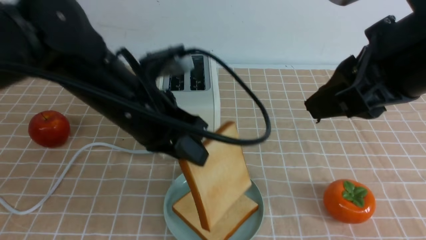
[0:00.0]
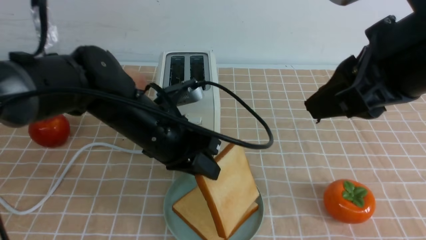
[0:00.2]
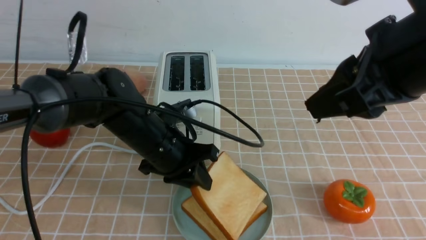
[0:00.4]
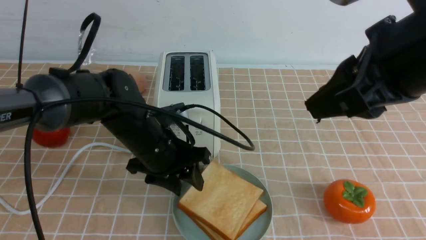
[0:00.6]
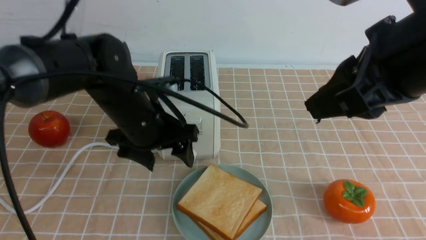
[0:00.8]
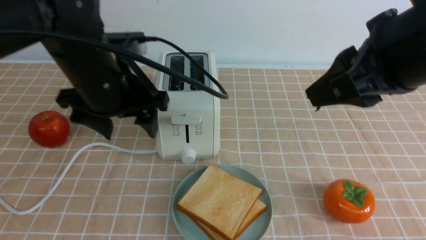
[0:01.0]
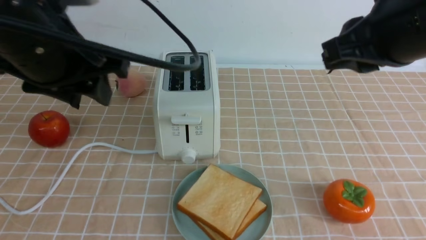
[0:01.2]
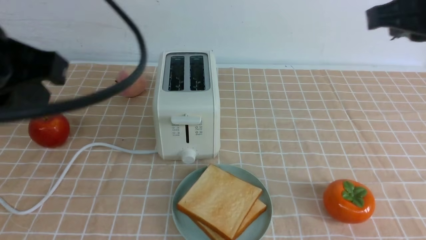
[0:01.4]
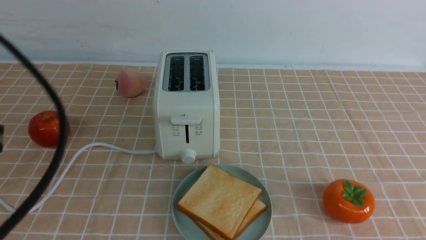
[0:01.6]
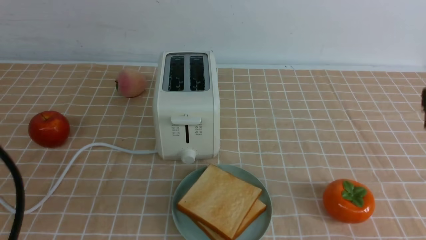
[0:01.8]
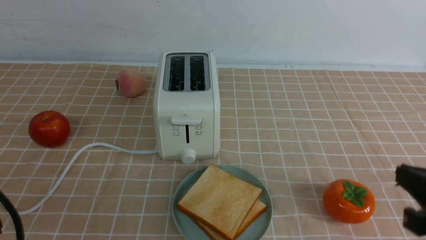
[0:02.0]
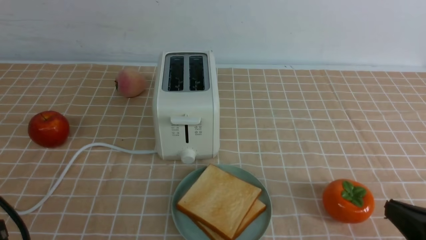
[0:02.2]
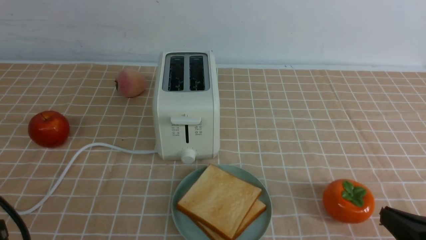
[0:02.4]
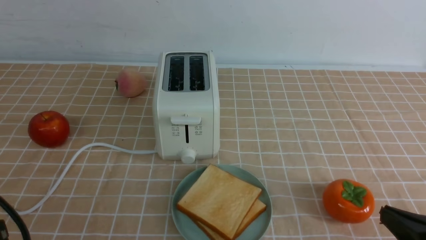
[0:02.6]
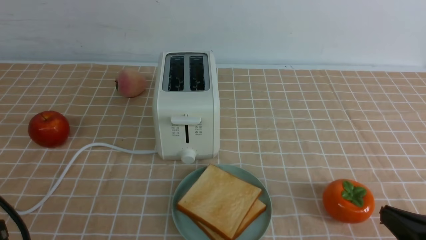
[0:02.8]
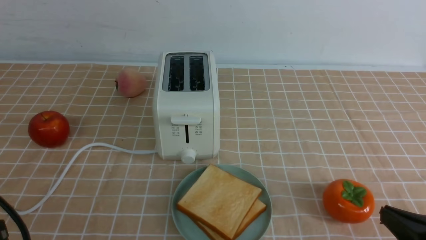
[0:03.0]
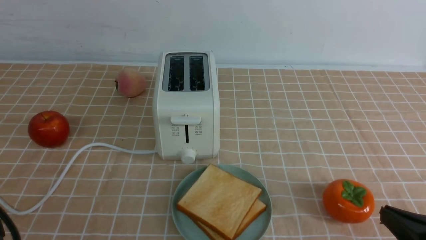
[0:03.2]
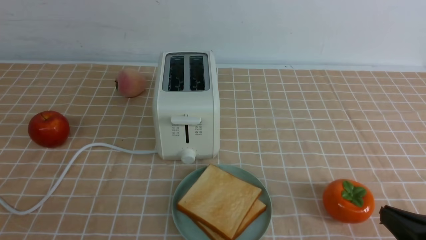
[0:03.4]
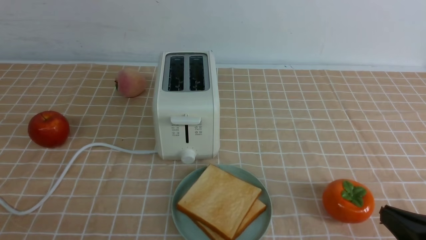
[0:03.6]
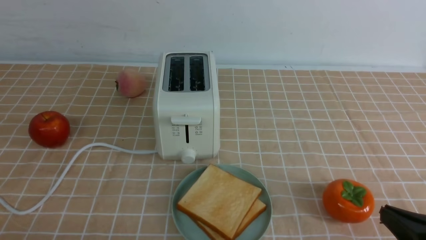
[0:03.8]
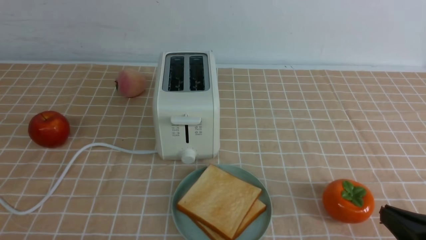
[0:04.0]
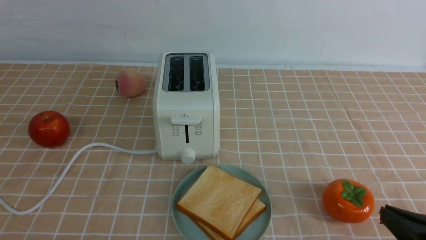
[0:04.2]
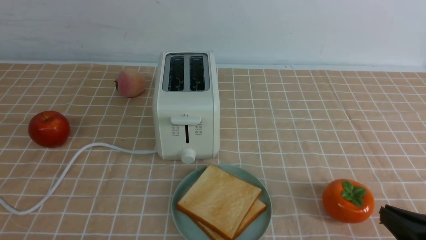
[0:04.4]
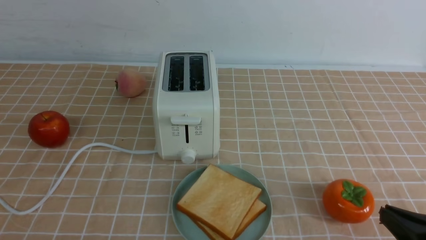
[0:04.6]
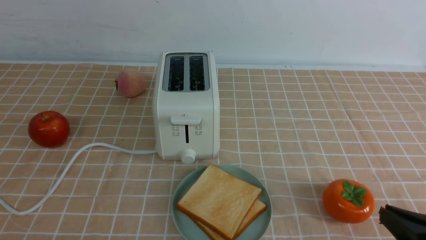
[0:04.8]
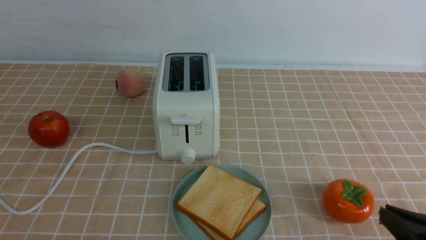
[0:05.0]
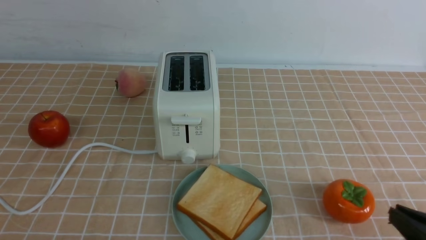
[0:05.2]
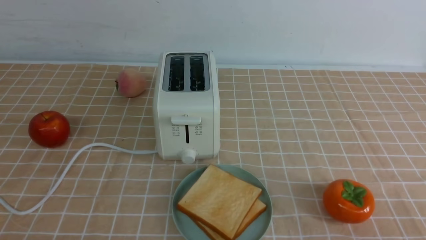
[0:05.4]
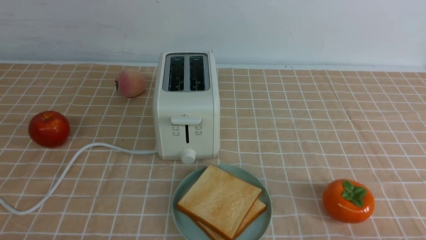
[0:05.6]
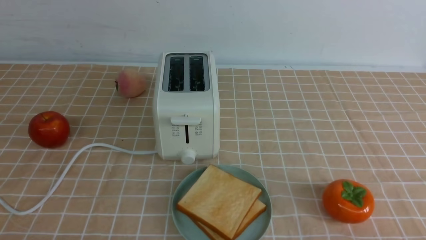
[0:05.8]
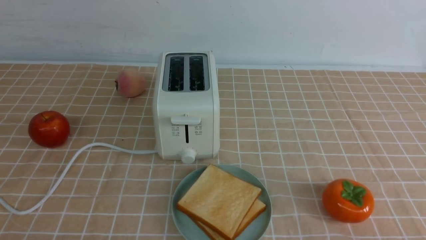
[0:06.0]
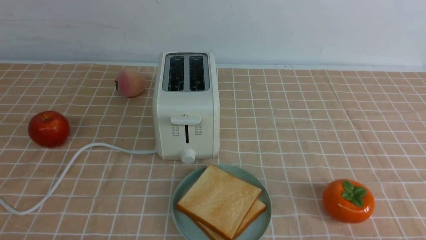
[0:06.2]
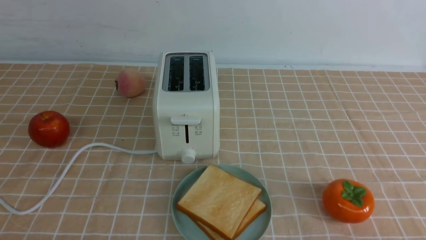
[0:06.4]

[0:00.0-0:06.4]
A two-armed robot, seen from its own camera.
Task of the whole recording: take toasted bread from bread machine on light coffee tablecloth place on plate.
Step, 0:00.0 to 0:00.8: use the left arm to put a slice of bread into the empty plate.
0:00.0 to 0:01.6: The left gripper is displaced backward and to the left by approximately 15 cm, travels downward and back again, approximately 15 cm each way, and opens and closes again. The right gripper is displaced to the right by roughly 5 cm, and closes up.
0:01.6 to 0:03.2: The left gripper travels downward and backward by some 15 cm, while the right gripper heads downward and backward, covering some 25 cm.
0:04.8 to 0:06.4: The right gripper is displaced backward by some 5 cm.
